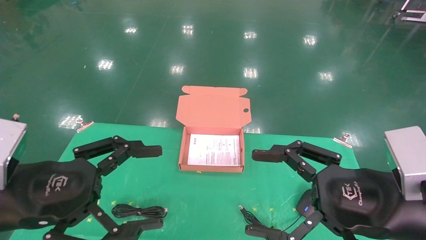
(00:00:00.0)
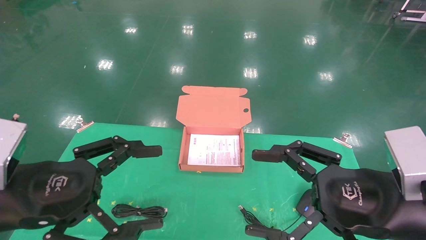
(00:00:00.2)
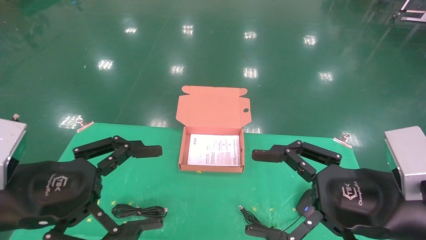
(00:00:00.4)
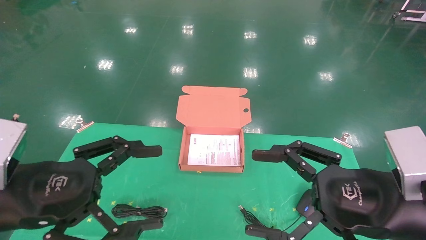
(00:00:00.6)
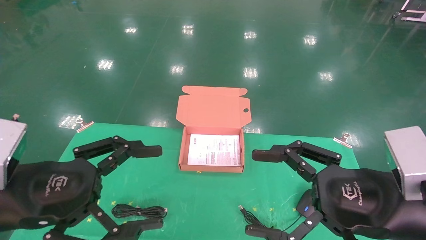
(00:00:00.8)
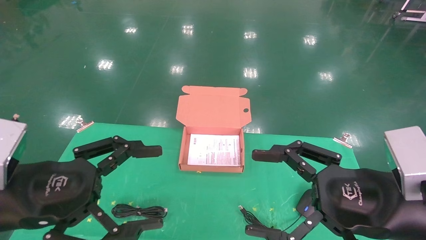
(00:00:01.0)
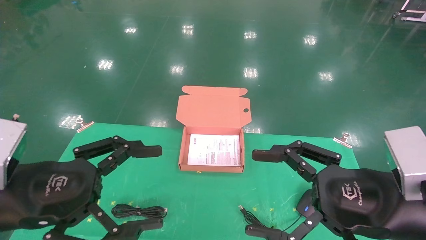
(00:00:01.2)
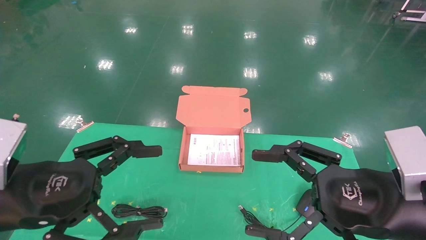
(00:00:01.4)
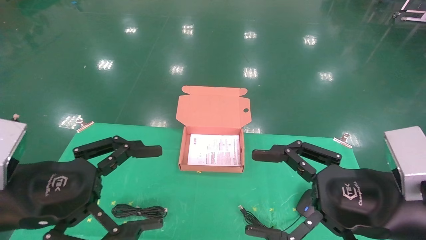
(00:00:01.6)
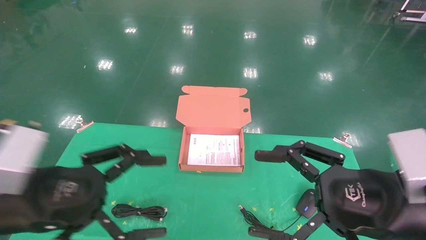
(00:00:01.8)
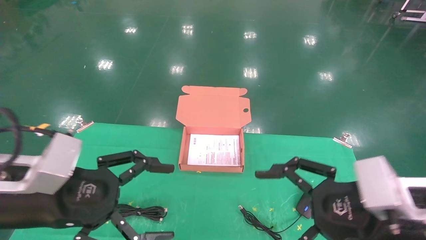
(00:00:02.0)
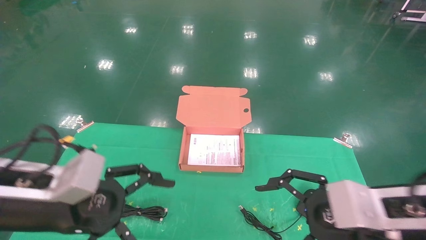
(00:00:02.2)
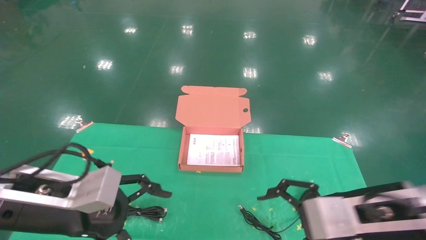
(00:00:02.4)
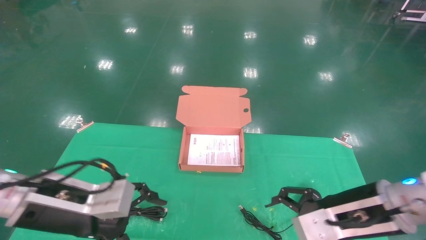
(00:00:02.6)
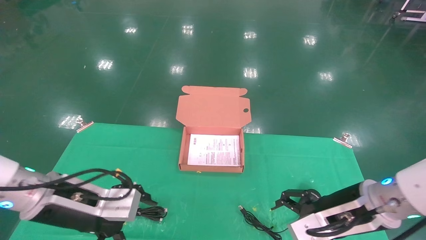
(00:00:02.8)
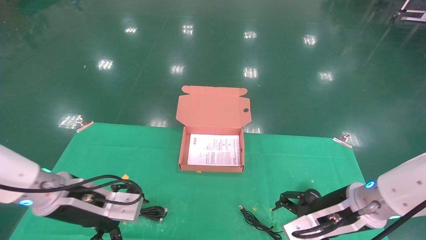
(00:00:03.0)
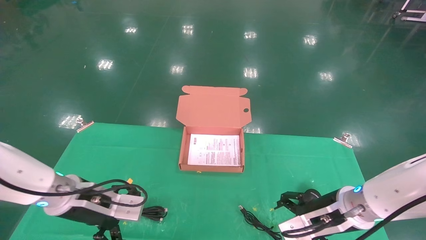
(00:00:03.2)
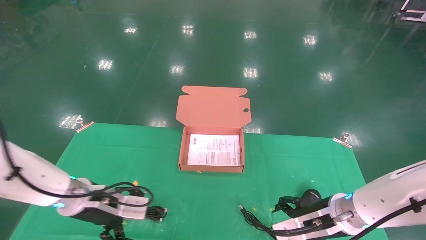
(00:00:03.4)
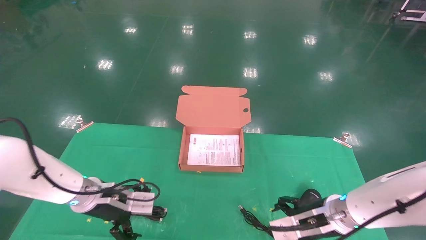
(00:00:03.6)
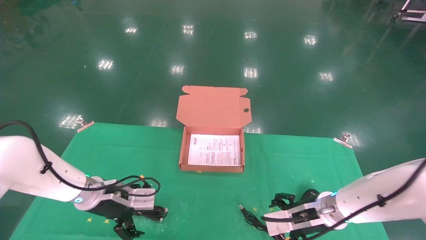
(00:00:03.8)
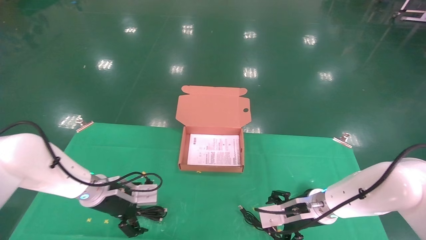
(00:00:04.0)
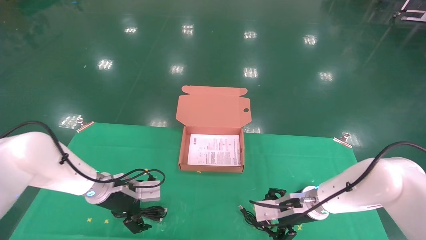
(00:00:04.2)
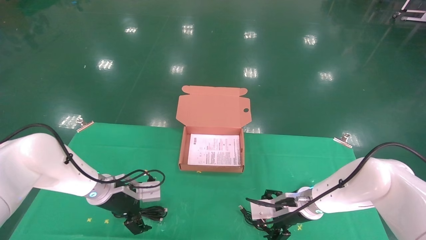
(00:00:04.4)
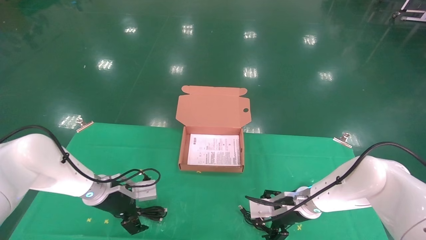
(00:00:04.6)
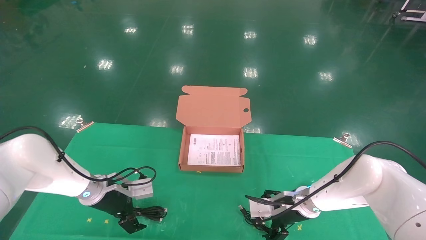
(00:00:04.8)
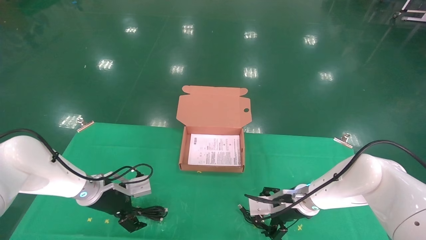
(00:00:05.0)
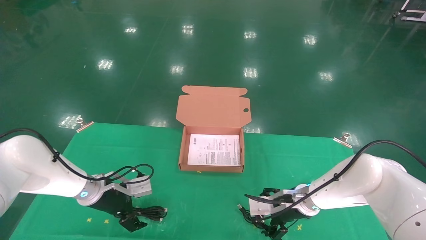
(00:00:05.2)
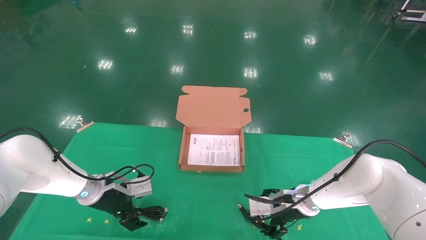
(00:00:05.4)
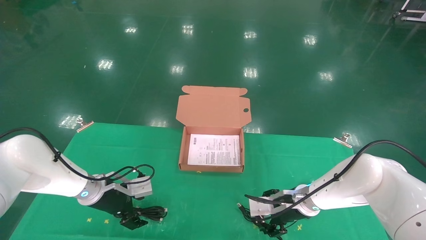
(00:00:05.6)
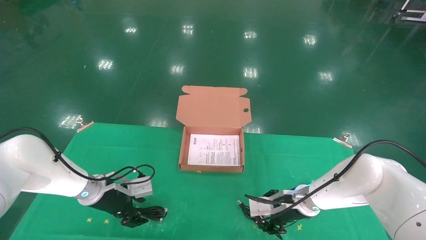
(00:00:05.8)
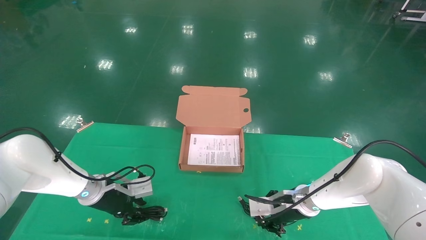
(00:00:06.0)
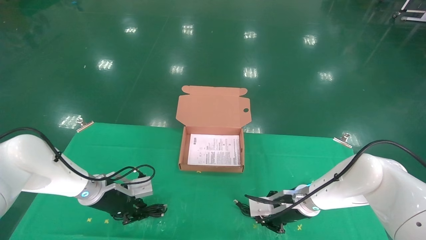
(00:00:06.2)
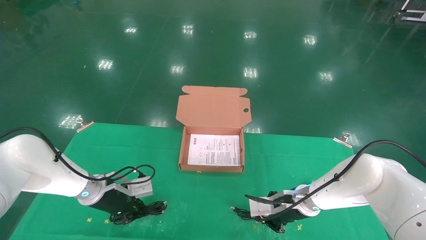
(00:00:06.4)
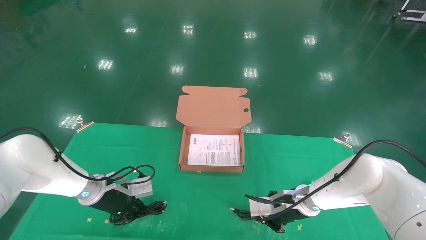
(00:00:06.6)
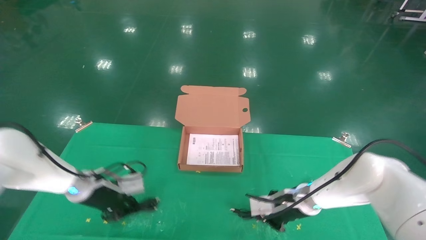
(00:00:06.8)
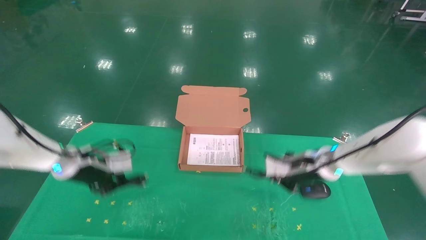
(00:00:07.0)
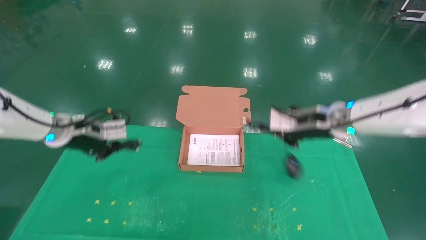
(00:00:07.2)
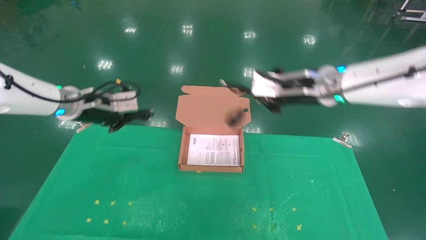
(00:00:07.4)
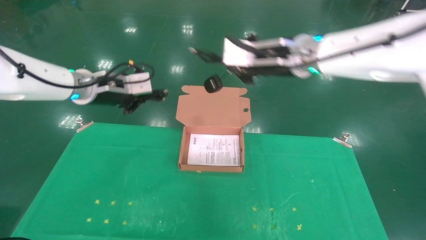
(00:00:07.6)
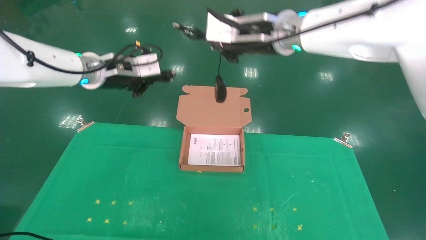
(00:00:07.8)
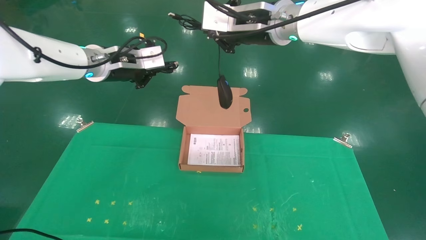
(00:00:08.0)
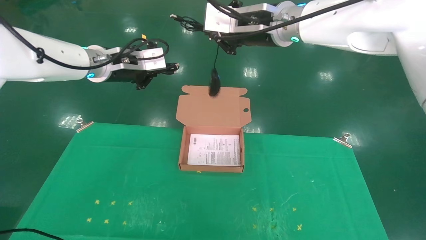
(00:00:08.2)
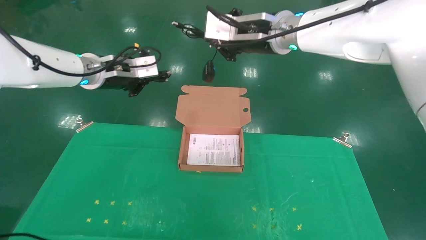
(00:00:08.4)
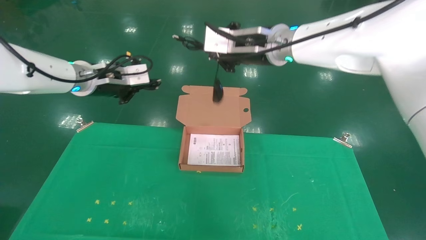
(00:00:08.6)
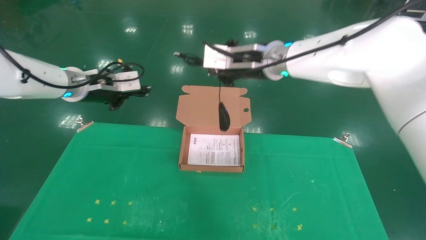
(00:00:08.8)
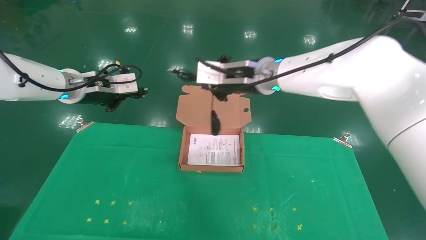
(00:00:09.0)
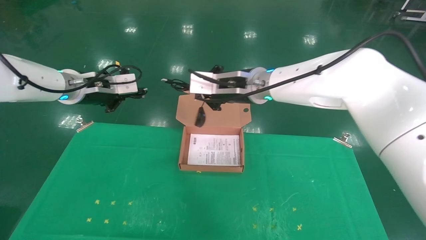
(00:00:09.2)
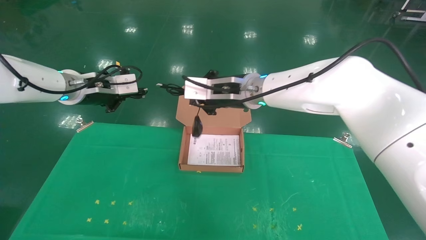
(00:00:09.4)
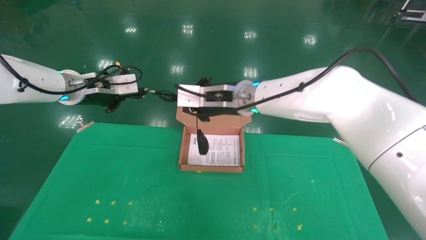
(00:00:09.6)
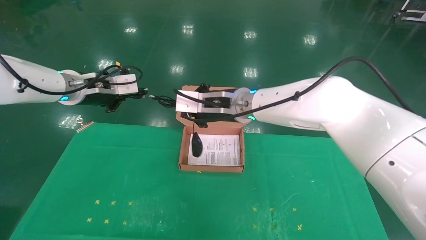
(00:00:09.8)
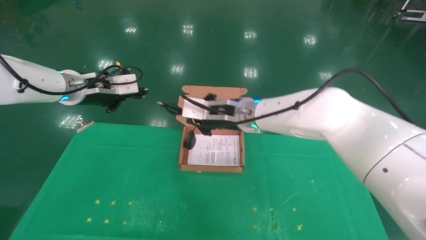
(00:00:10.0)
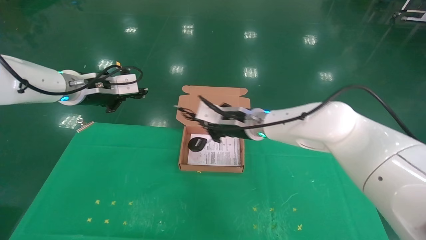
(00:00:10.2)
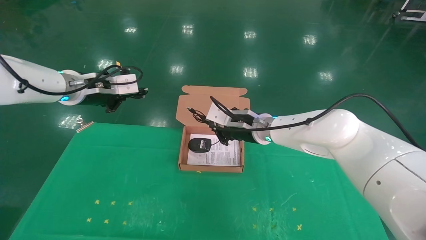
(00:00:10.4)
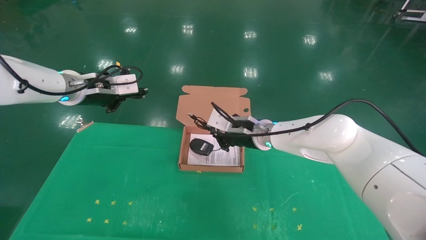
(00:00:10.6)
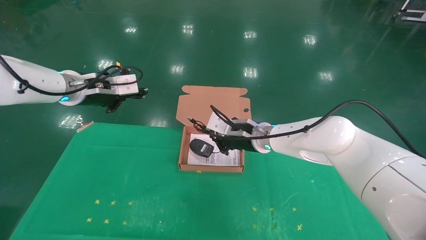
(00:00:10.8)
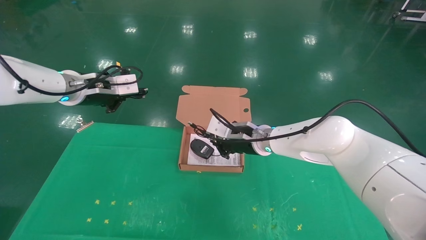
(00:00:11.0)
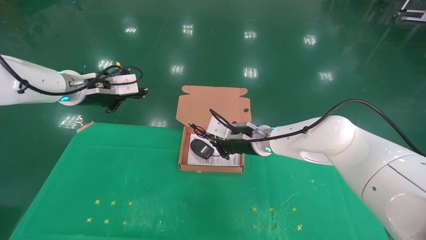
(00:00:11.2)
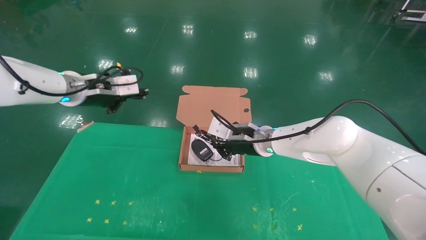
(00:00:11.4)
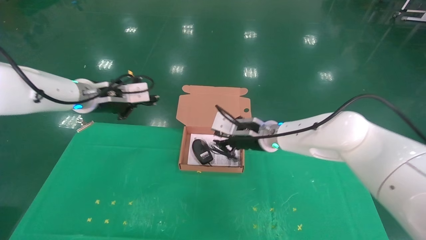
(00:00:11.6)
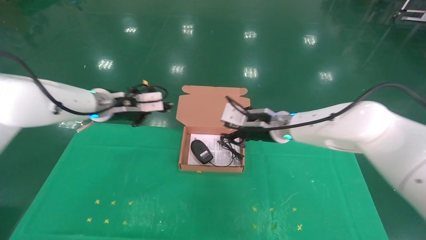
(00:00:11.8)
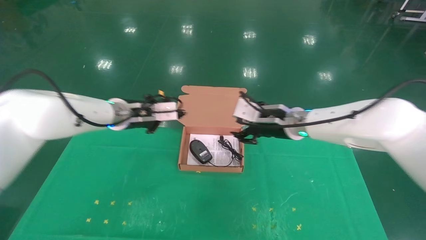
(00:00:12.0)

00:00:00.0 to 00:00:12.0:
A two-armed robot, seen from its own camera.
Task of the whole recording: grasp data cable left put into box grasp mouse right put into box.
Step, 00:00:01.8 to 00:00:07.2: Grab and pick up both the mouse and power cord from the accessory packaging area at the same time.
00:00:00.0 to 00:00:01.6: Neither gripper changes place.
00:00:01.6 to 00:00:03.0: The two grippers go about 10 cm forward and downward.
00:00:03.0 to 00:00:04.4: The two grippers go some 15 cm forward and downward.
00:00:04.4 to 00:00:06.0: The left gripper closes up. Meanwhile the right gripper closes its fingers.
00:00:06.0 to 00:00:07.6: Both grippers travel together upward, about 30 cm. The left gripper closes up, while the right gripper closes up.
00:00:07.6 to 00:00:09.0: The right gripper moves to the left, some 5 cm.
00:00:09.0 to 00:00:10.4: The right gripper travels downward by some 15 cm.
00:00:10.4 to 00:00:12.0: The right gripper heads to the right, covering some 10 cm, and opens up. The left gripper moves to the right and downward, about 10 cm.

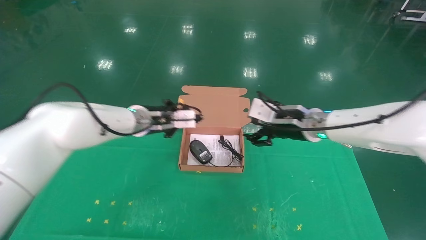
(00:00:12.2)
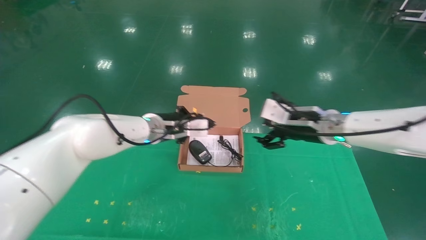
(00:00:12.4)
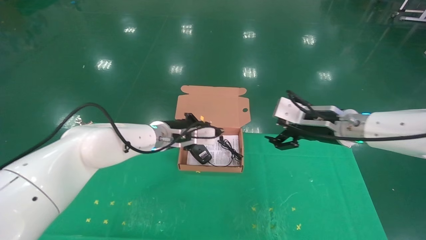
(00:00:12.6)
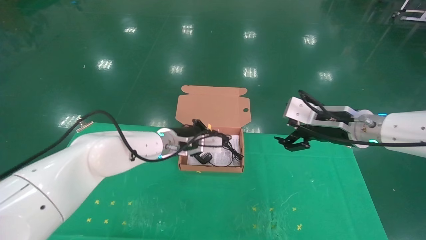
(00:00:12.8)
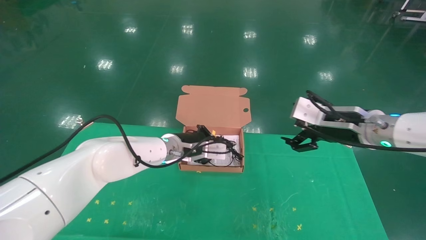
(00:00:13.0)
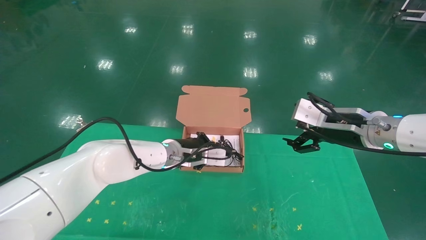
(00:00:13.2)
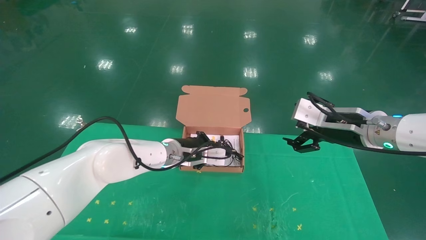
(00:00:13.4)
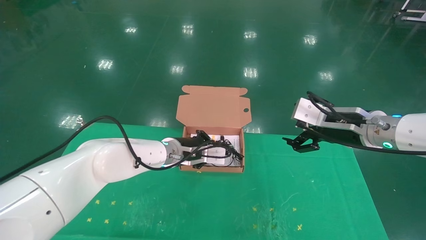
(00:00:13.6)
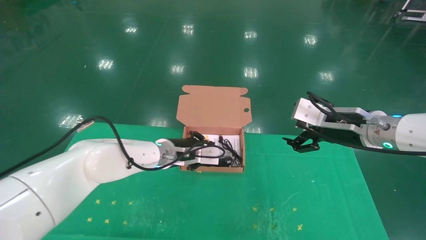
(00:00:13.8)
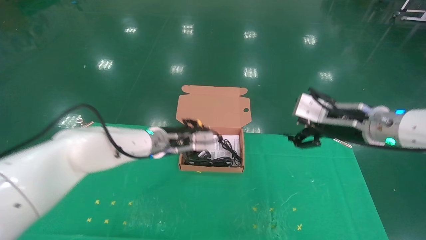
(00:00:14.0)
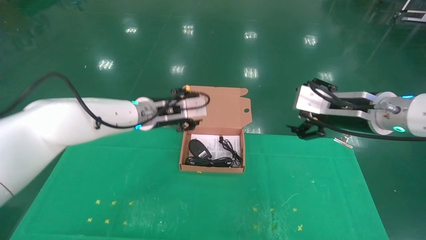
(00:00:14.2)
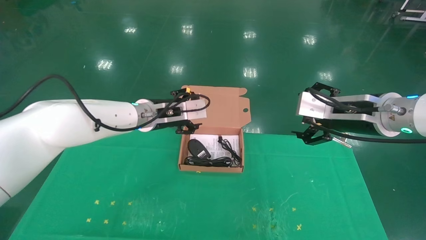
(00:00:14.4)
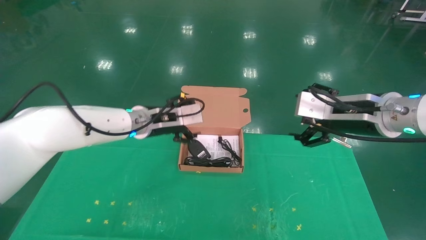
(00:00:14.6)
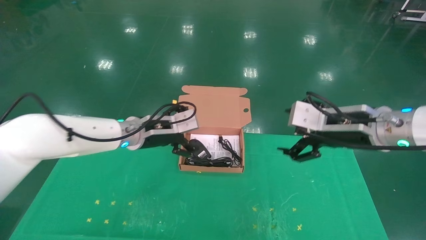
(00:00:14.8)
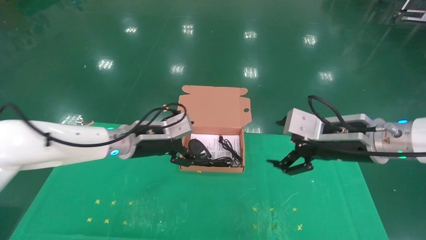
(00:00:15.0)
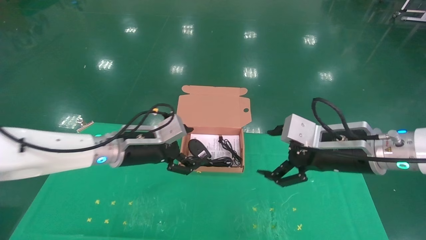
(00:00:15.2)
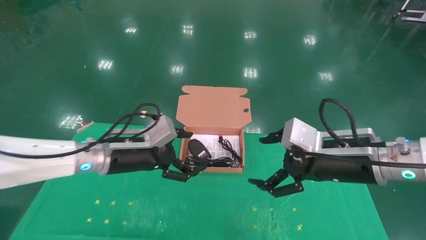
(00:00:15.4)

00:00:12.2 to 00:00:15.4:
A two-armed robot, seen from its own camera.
Task of the whole recording: grasp data cable left put into box grasp mouse right put into box.
Step, 00:00:12.2 to 00:00:14.4: Place the mouse and power cord into the box.
00:00:12.2 to 00:00:13.8: The left gripper travels downward and to the right by approximately 10 cm. The right gripper shifts roughly 10 cm to the right and backward, and opens its fingers.
00:00:13.8 to 00:00:15.4: The left gripper heads backward and to the left, covering about 10 cm, and opens its fingers. Meanwhile the right gripper shifts roughly 5 cm backward.
